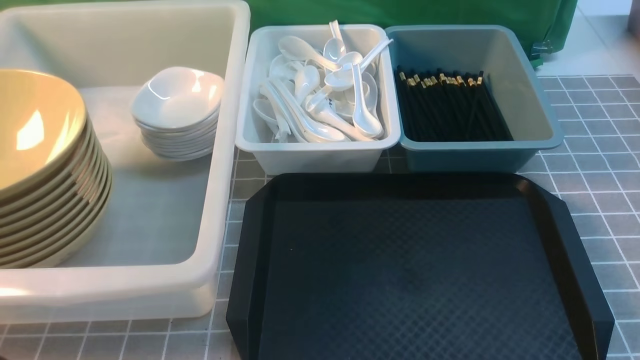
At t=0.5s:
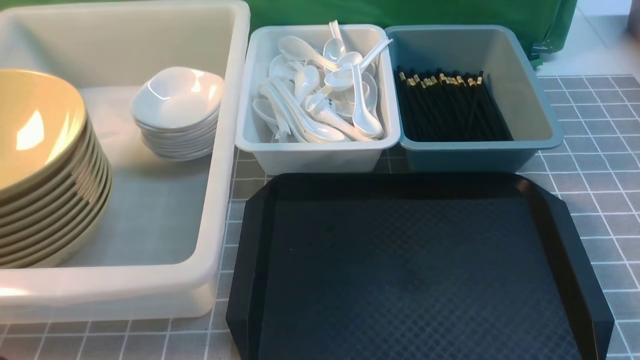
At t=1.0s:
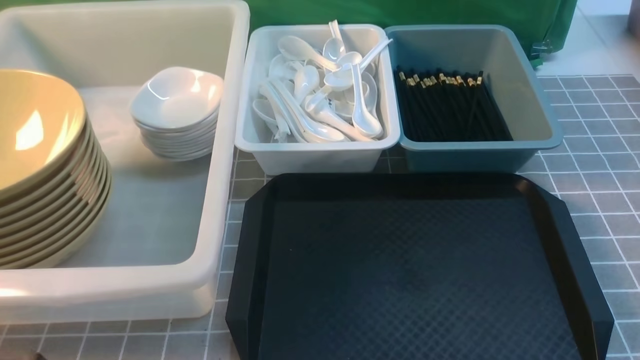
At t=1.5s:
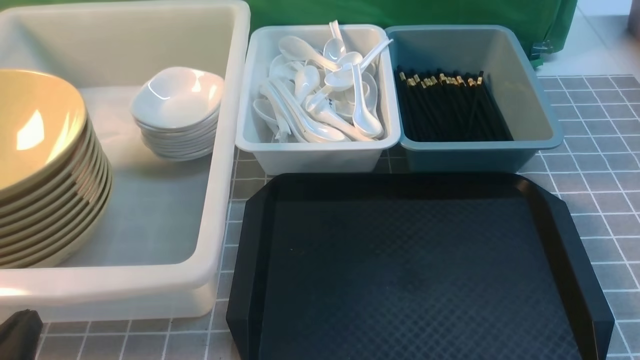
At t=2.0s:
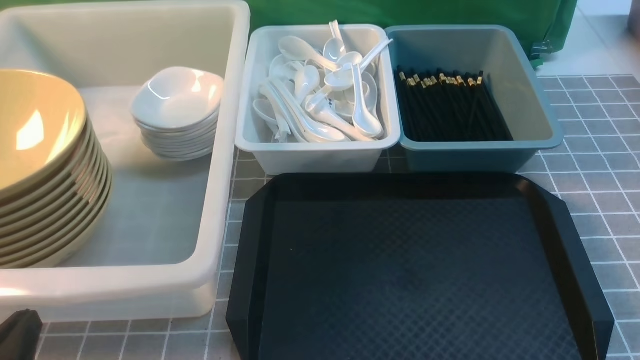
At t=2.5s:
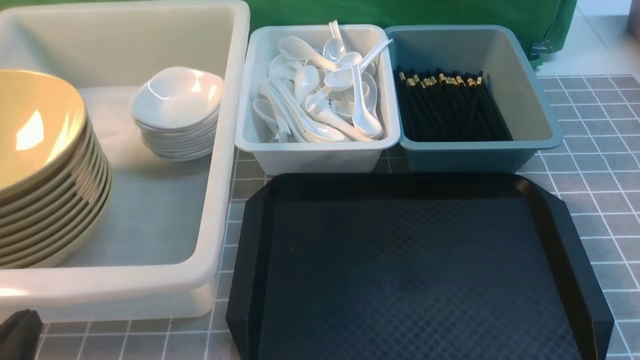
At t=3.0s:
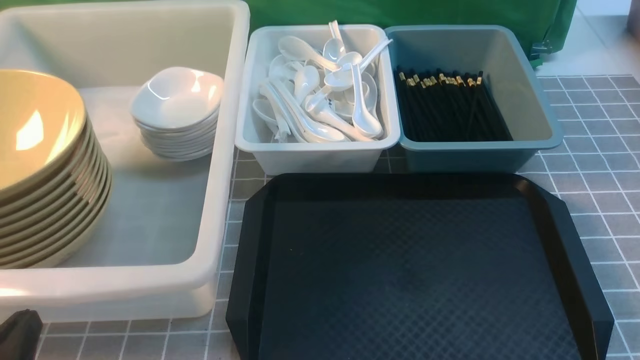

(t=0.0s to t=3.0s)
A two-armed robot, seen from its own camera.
Task of the whole recording: on grey table put chopsticks spoon bowls plates into blue grey white boxes.
t=0.0s - t=1.5s: The left gripper heads downward, covering approximately 15 cm.
t=1.5s - t=3.0s: Both grippers stay about where they are.
